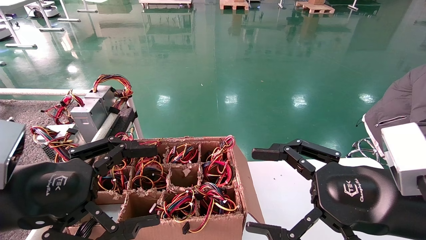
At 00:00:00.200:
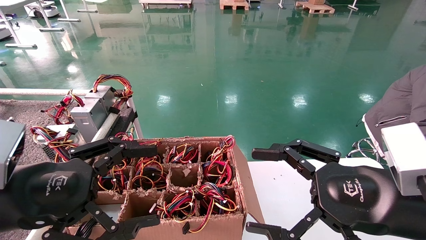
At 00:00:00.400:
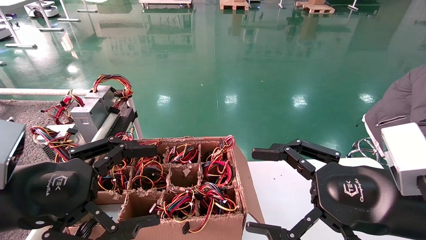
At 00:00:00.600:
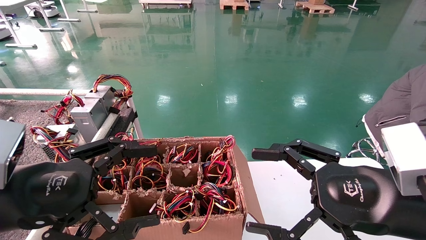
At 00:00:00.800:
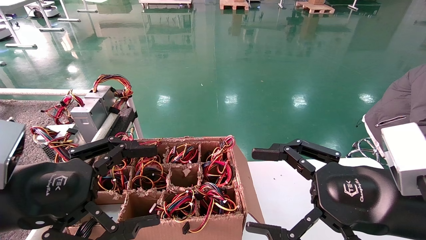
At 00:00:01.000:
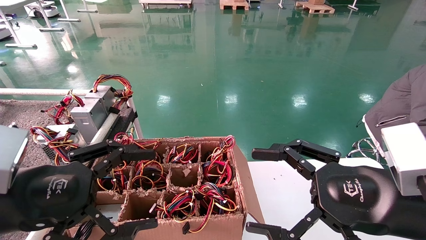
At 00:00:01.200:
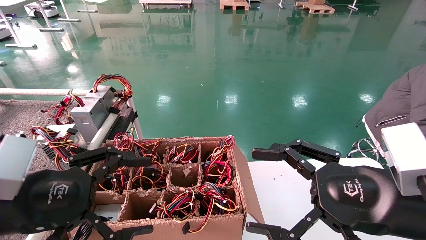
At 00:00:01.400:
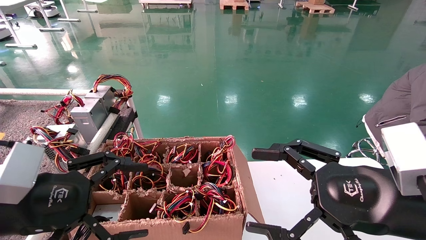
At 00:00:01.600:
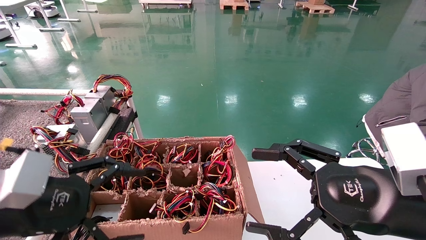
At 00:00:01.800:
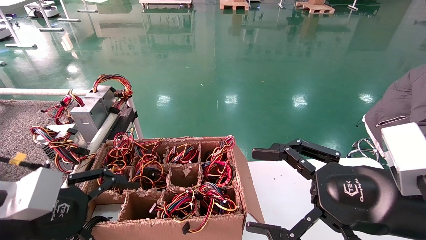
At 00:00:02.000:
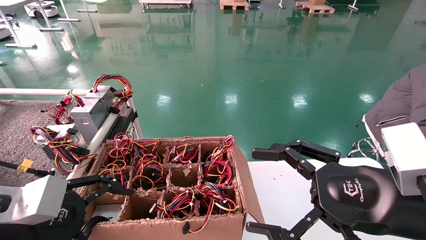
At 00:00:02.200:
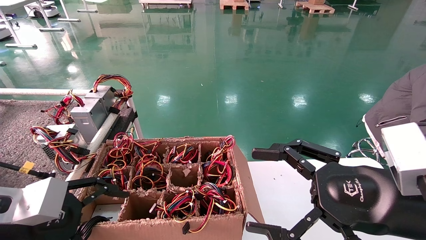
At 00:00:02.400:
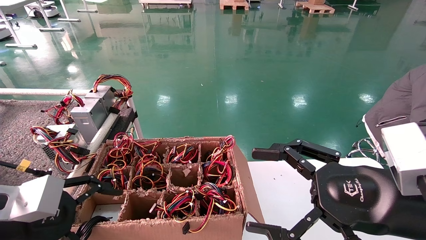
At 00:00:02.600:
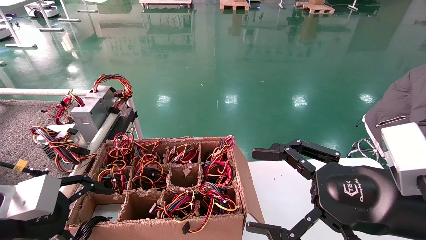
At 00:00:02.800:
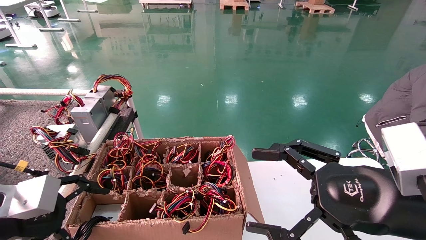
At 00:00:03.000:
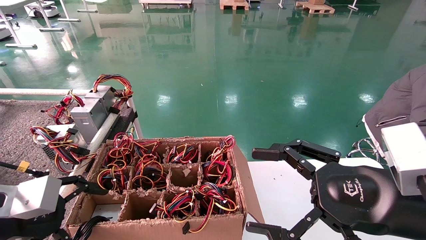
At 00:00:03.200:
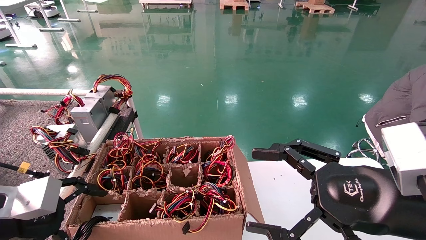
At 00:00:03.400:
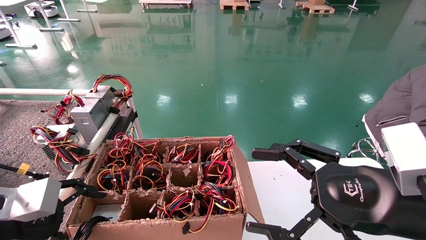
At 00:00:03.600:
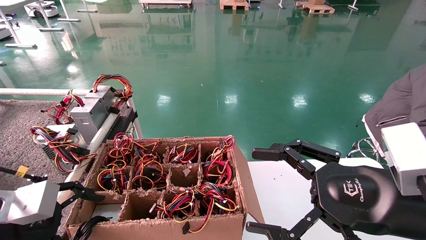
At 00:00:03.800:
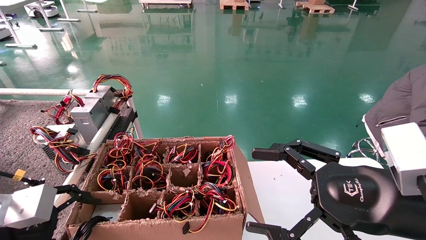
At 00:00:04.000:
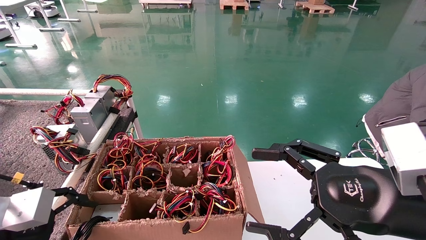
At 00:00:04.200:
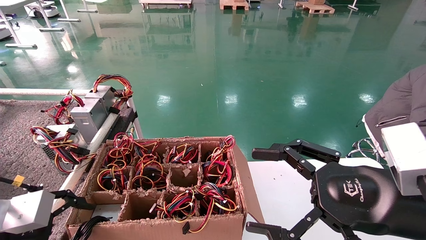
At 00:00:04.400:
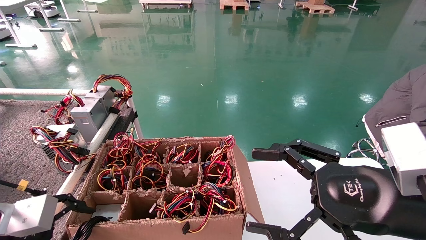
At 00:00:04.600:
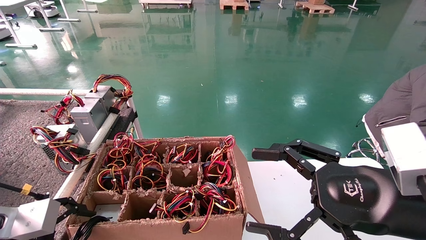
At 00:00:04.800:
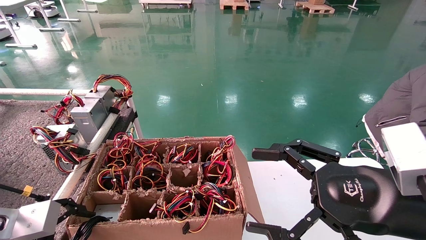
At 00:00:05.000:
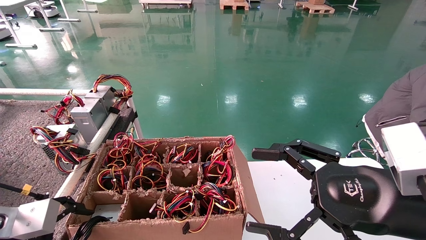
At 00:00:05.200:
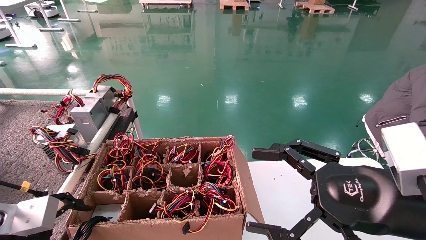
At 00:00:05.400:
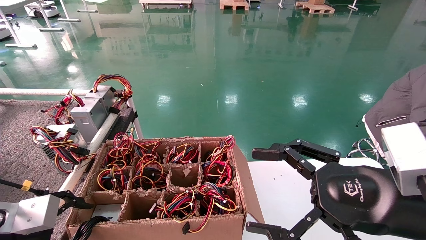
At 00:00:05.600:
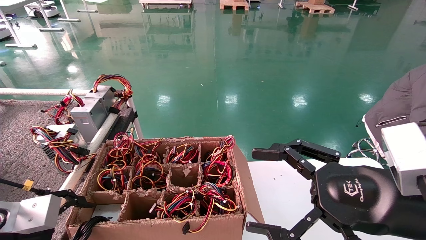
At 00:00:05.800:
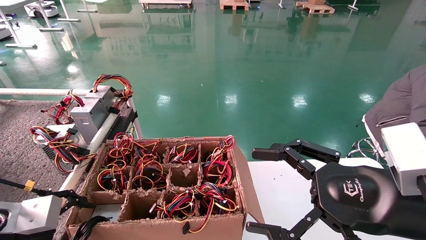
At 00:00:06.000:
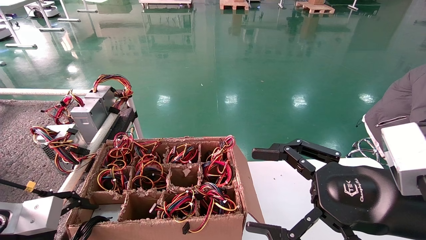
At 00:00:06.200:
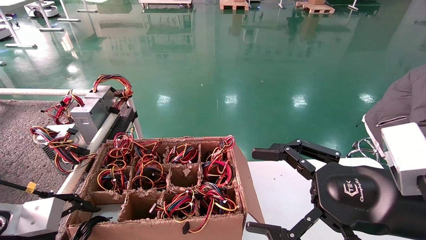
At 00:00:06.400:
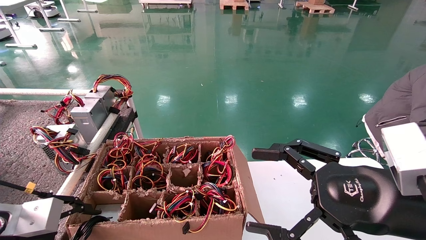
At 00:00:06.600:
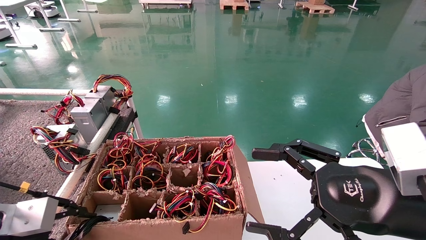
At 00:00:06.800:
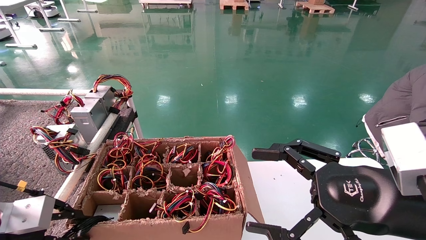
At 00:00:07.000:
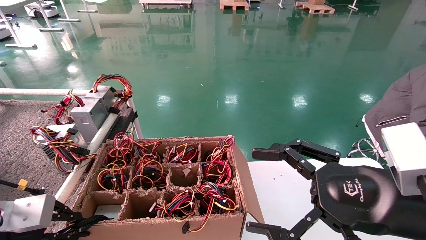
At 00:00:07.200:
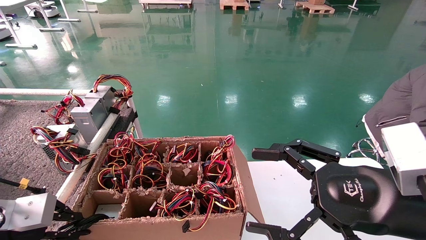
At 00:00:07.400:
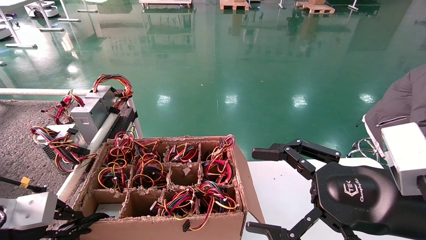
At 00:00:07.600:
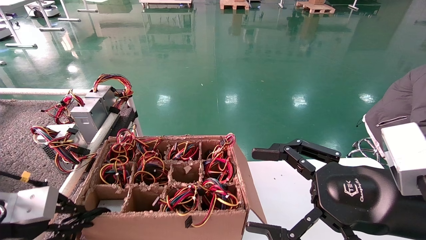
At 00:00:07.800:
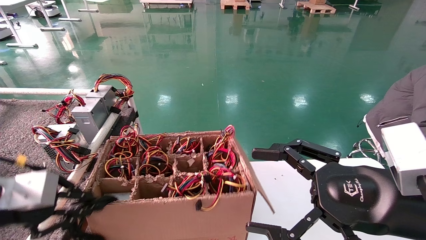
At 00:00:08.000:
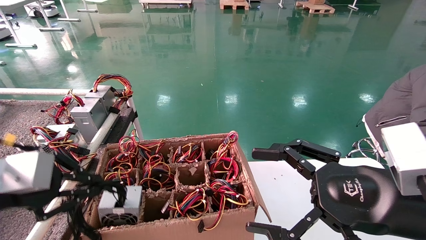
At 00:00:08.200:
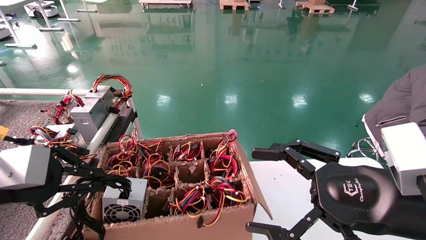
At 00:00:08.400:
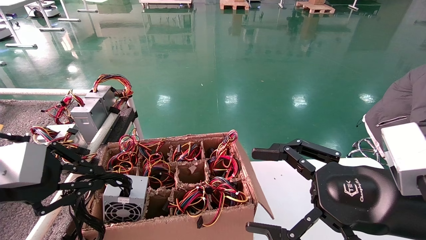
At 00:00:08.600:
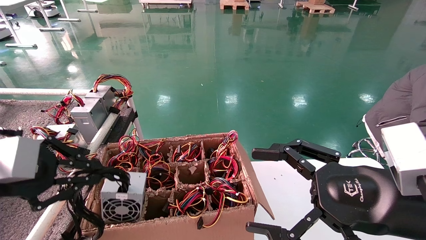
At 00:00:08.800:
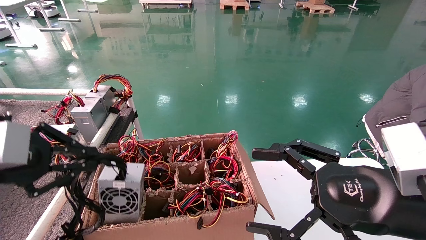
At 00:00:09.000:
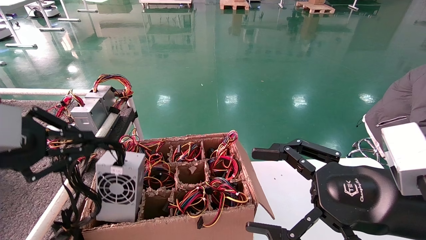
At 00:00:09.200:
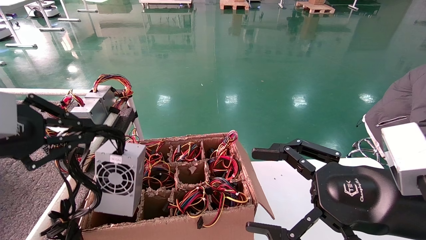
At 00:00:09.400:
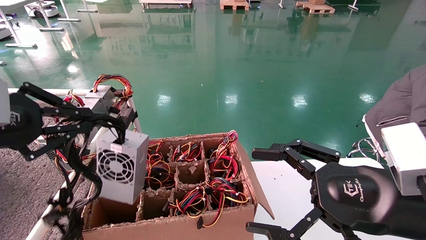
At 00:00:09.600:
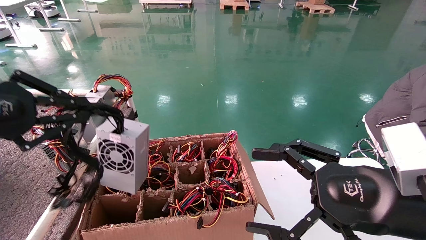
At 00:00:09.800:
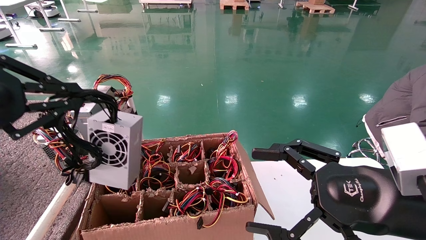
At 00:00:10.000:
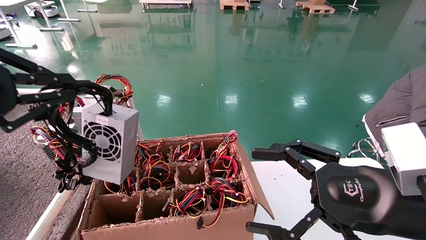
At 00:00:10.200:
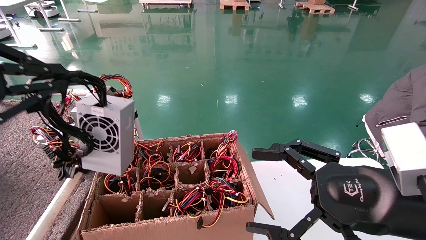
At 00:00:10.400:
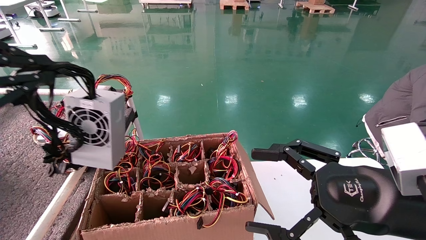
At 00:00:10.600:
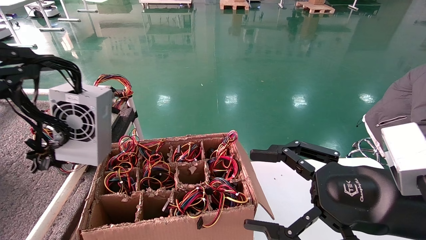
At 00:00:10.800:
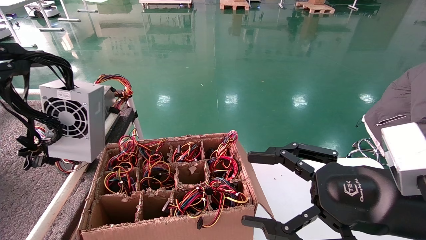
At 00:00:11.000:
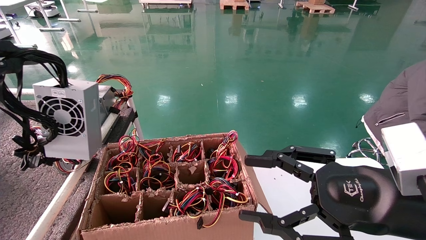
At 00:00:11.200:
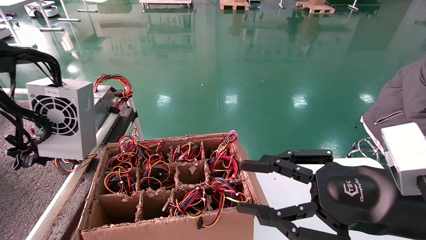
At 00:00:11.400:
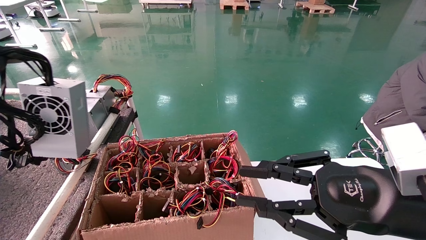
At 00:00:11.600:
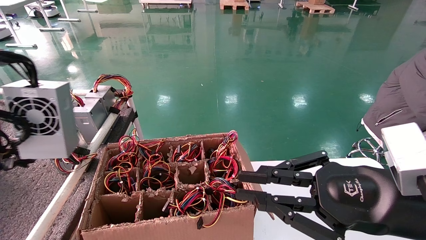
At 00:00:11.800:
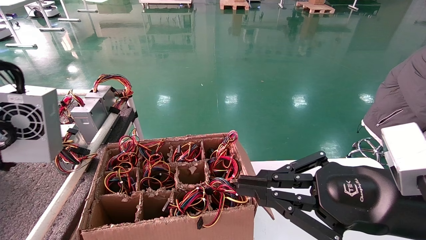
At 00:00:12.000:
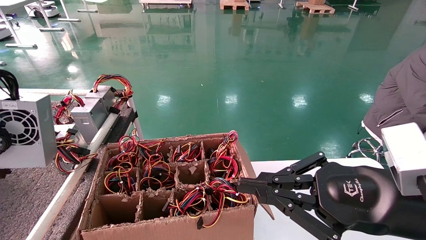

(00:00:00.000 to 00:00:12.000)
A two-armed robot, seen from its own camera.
Step, 00:00:01.400 - 00:00:07.400: Grab and lift the power supply from the large box.
00:00:00.000 - 00:00:01.600: There are only small adjustments of the grippers.
00:00:03.000 - 00:00:04.400: The grippers move only a little.
00:00:04.400 - 00:00:06.000: The two grippers keep their place.
00:00:06.000 - 00:00:07.600: The left gripper closes up.
00:00:07.600 - 00:00:09.000: The left gripper travels upward by roughly 10 cm.
00:00:09.000 - 00:00:10.400: The left gripper goes about 5 cm upward.
00:00:10.400 - 00:00:12.000: The left gripper shifts approximately 10 cm to the left. The right gripper closes its fingers.

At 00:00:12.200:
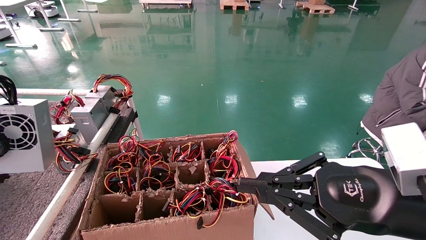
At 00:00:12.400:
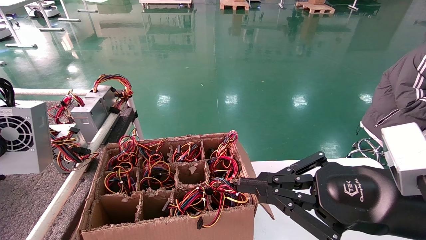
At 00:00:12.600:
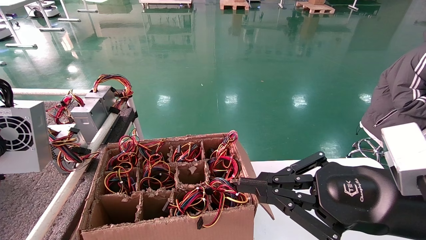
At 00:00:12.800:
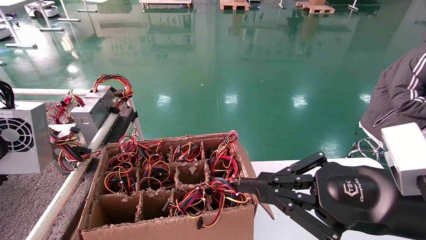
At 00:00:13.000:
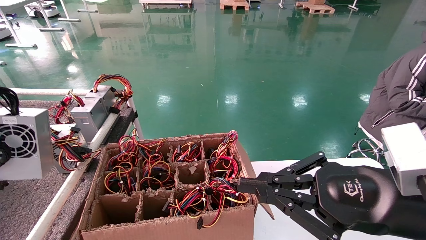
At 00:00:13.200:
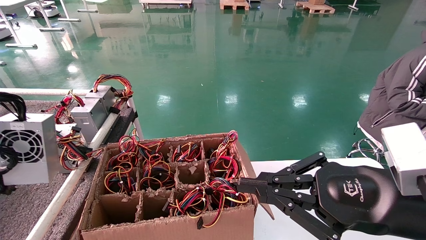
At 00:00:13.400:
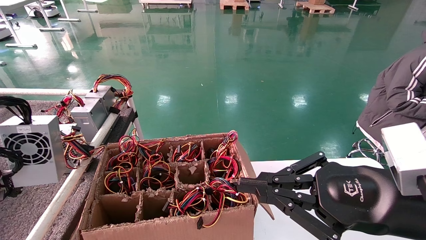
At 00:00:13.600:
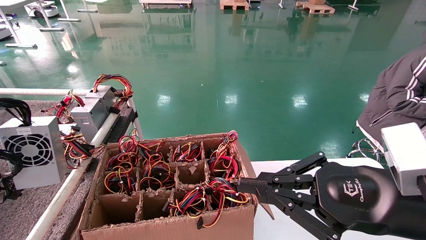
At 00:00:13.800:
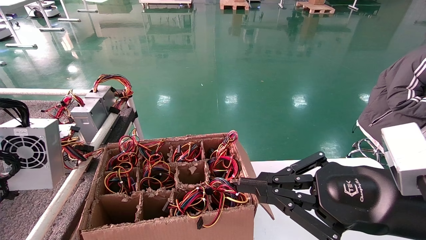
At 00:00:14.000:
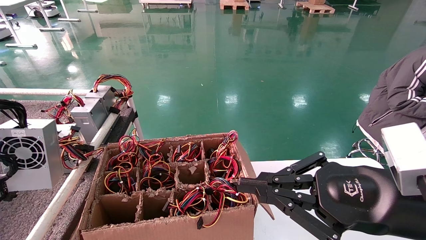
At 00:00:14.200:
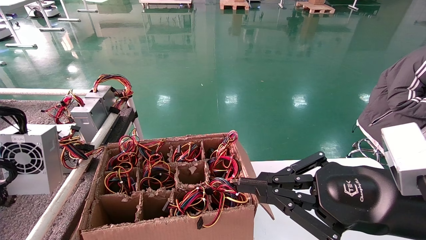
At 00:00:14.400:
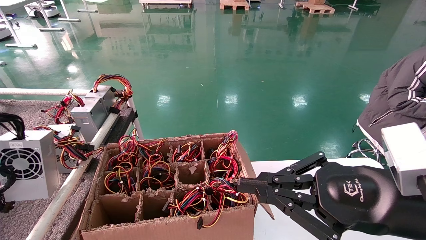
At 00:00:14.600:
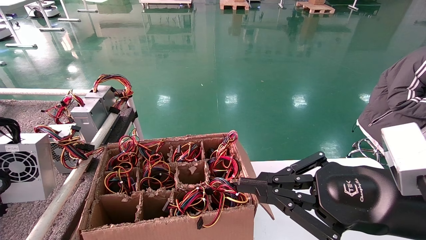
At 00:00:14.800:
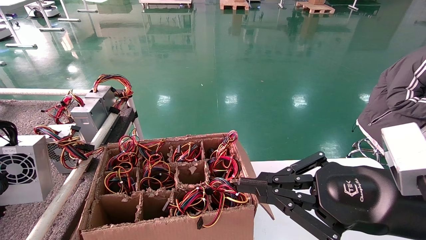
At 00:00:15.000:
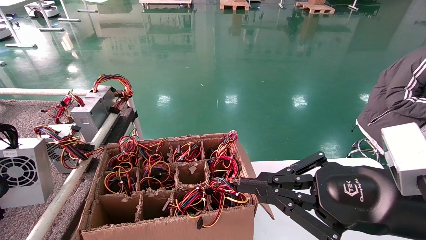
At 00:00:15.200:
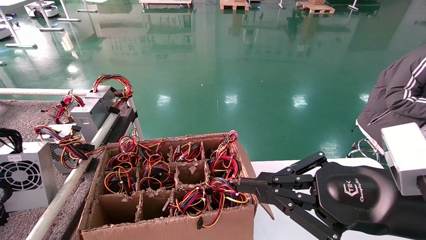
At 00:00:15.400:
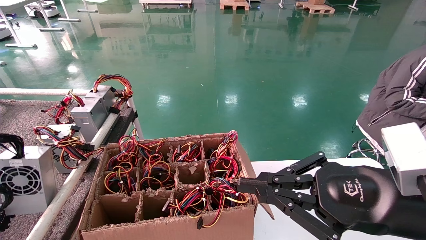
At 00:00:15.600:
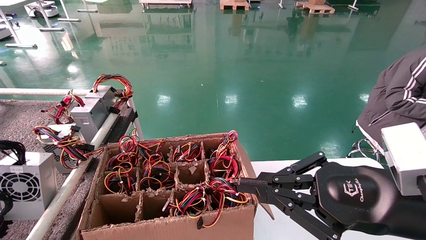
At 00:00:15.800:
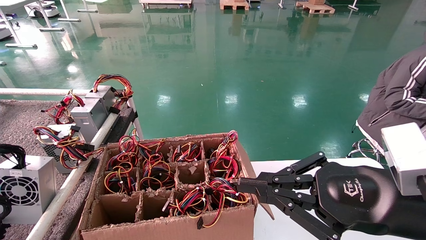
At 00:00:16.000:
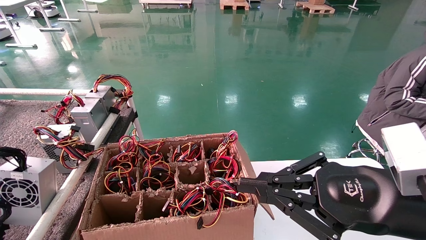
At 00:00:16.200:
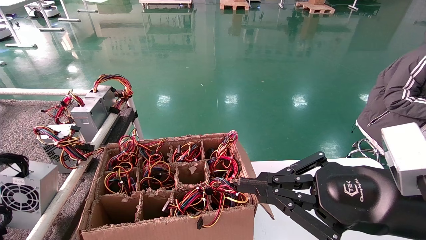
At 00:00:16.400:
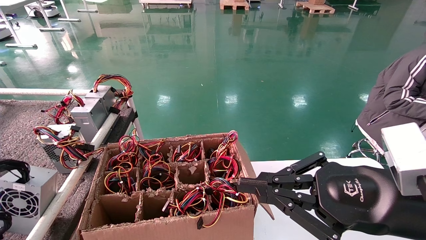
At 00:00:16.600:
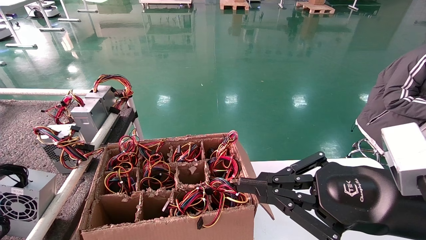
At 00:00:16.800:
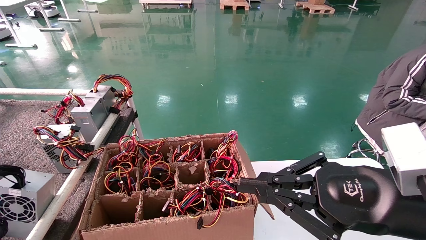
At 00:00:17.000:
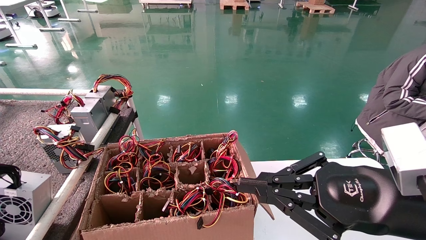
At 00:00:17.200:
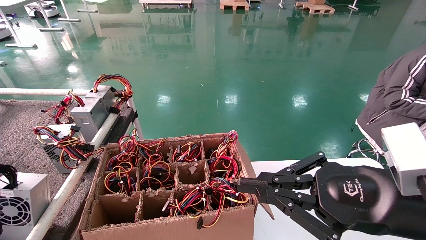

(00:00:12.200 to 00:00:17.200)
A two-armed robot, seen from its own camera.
00:00:12.200 - 00:00:13.800: The grippers move only a little.
00:00:13.800 - 00:00:15.600: The left gripper moves downward, some 5 cm.
00:00:15.600 - 00:00:17.200: The grippers stay close to where they were, moving slightly.
